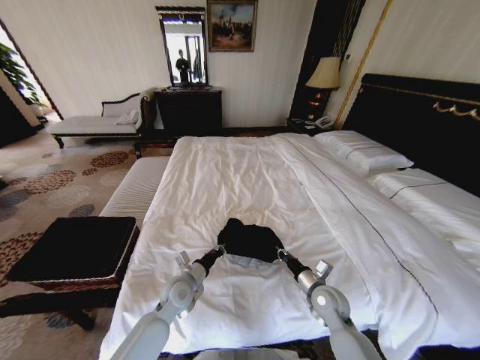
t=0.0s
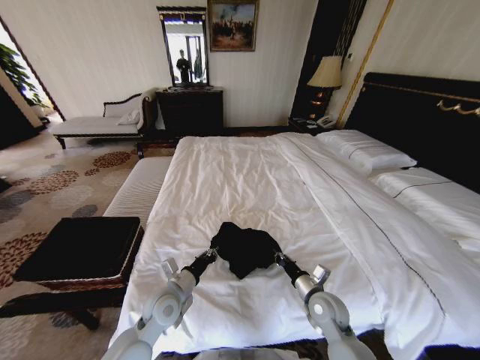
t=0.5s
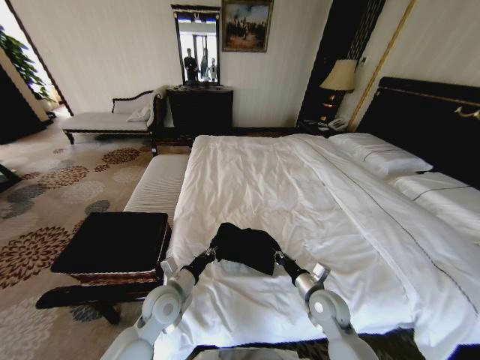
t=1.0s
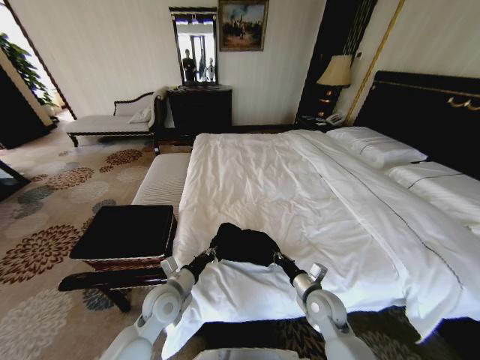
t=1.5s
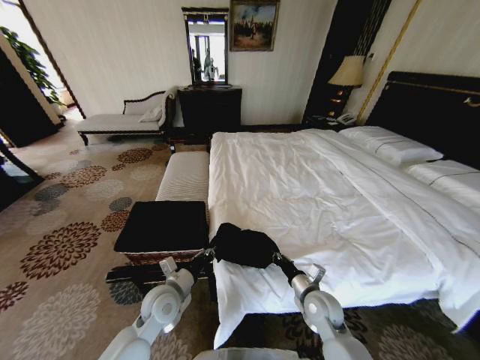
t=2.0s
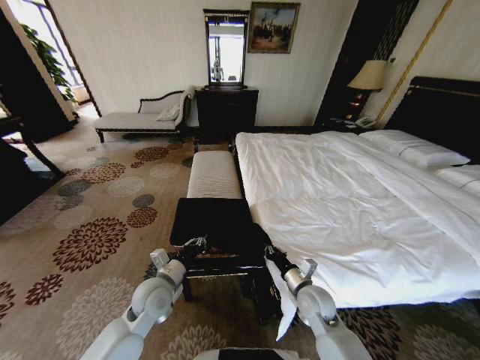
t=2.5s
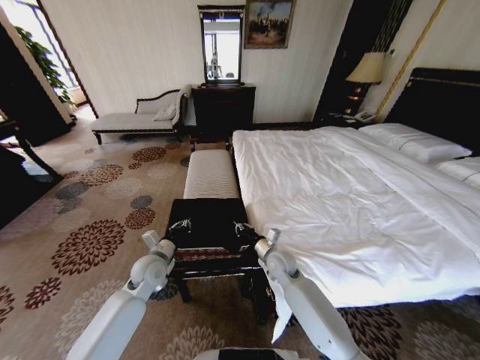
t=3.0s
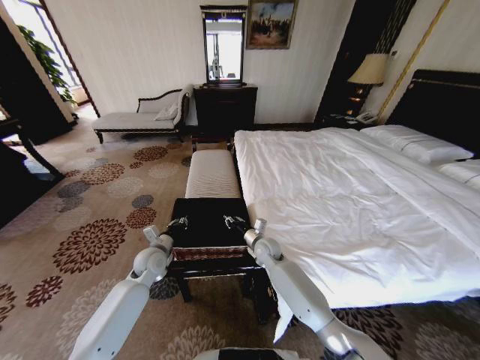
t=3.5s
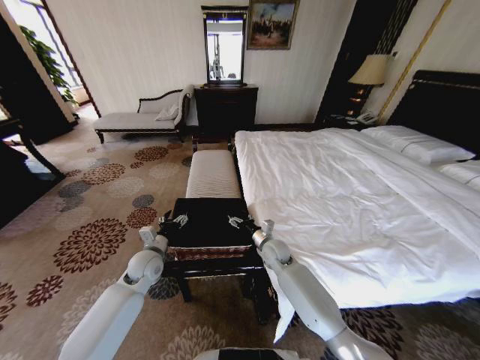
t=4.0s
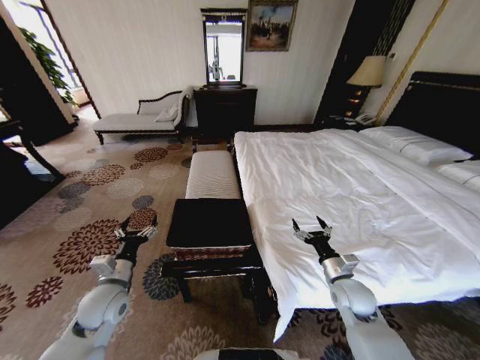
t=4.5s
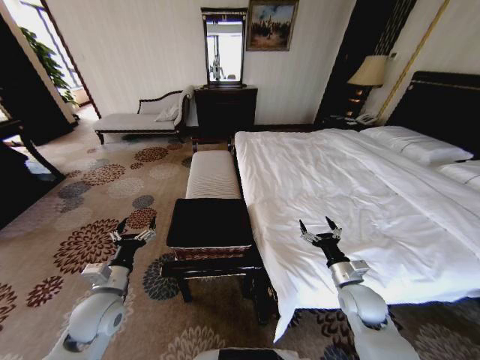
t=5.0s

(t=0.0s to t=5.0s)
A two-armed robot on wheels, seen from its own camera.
Task of the whole recording: Fold the clothes on the bed and place them into the basket.
t=0.0s - t=2.5s: The left gripper heads upward, covering roughly 5 cm; the right gripper goes about 5 cm to the left.
t=2.5s - t=5.0s: The right gripper moves to the right, approximately 10 cm, and opens, while the left gripper heads to the left, covering roughly 10 cm, reaches some 10 cm forward, then returns, and opens.
